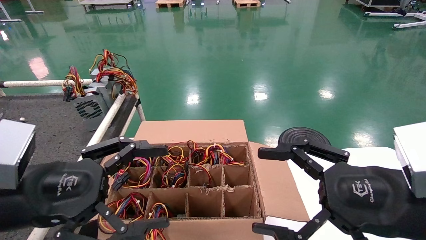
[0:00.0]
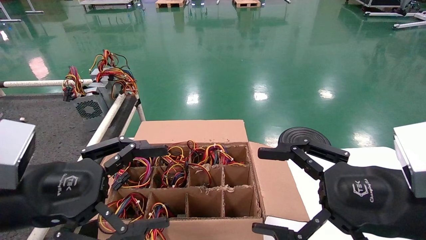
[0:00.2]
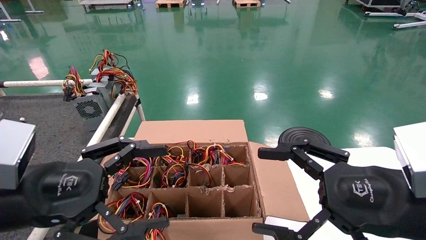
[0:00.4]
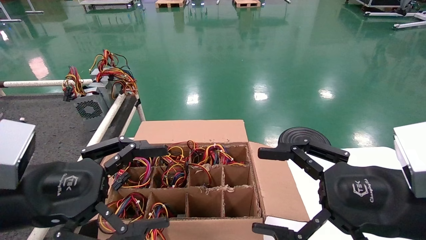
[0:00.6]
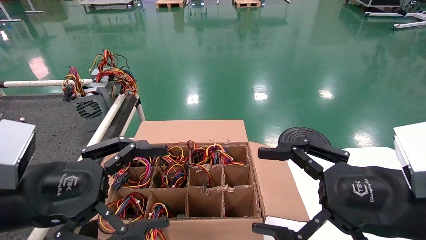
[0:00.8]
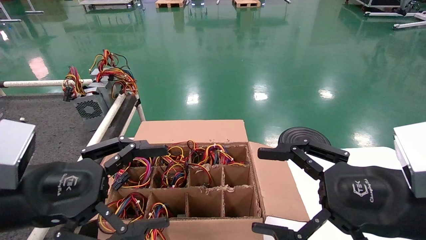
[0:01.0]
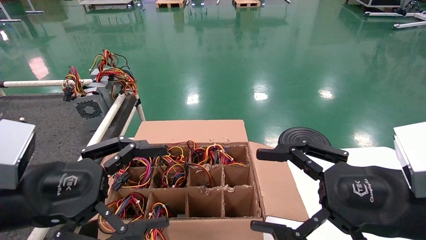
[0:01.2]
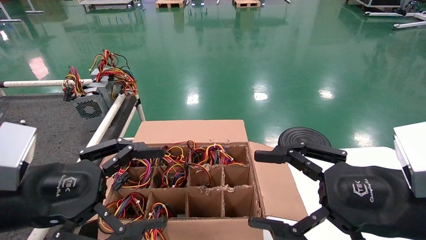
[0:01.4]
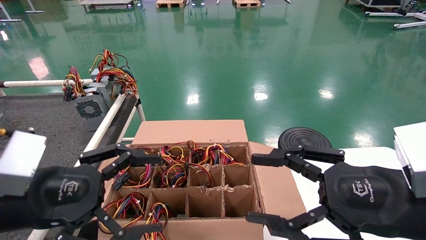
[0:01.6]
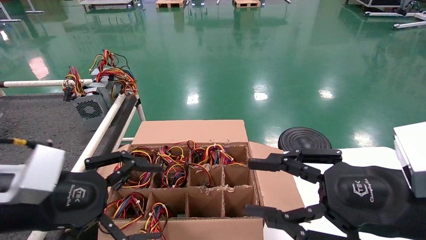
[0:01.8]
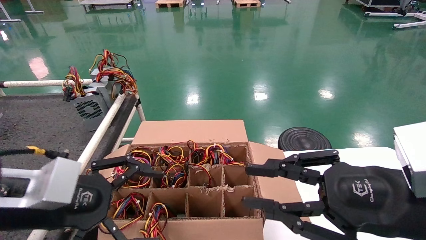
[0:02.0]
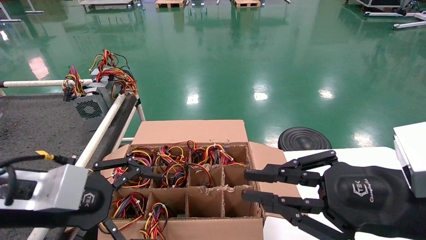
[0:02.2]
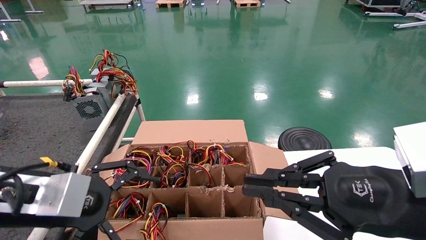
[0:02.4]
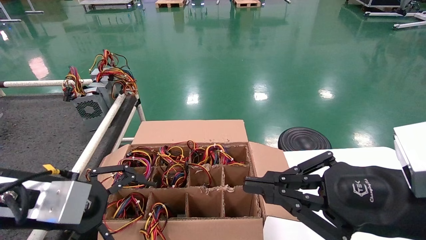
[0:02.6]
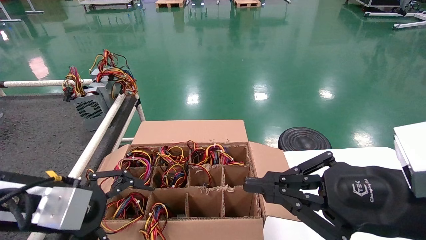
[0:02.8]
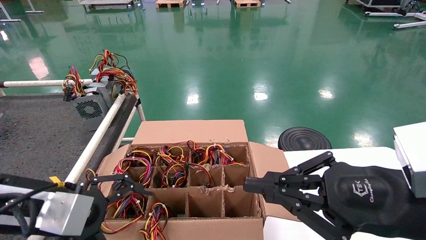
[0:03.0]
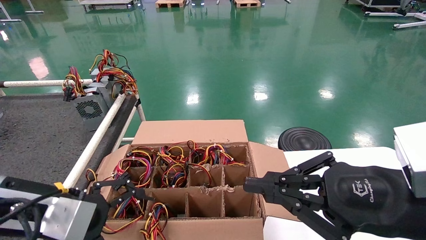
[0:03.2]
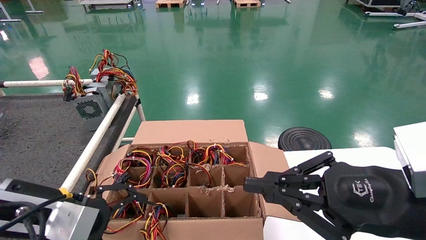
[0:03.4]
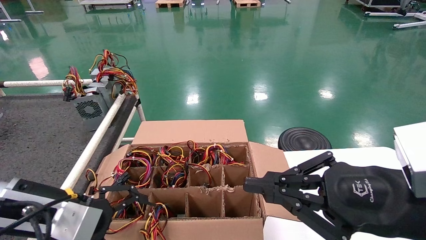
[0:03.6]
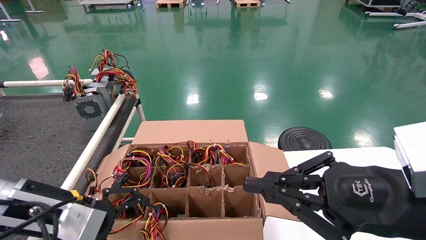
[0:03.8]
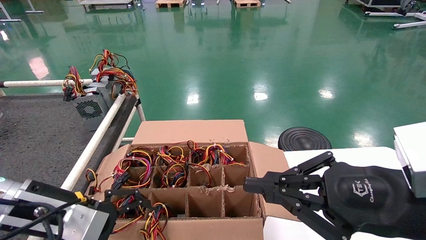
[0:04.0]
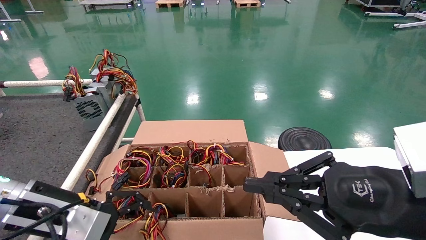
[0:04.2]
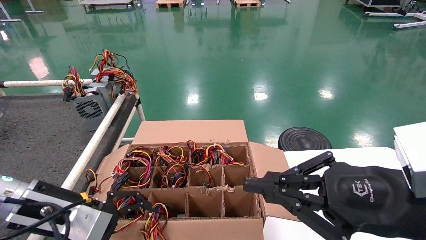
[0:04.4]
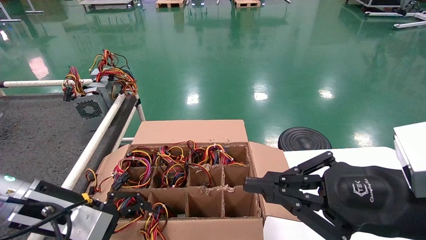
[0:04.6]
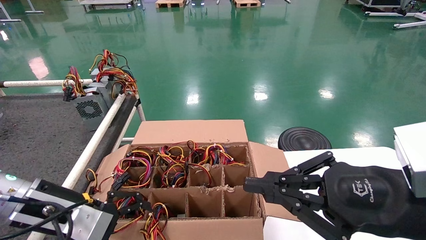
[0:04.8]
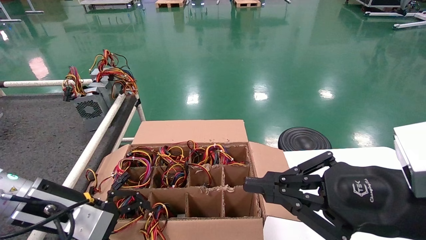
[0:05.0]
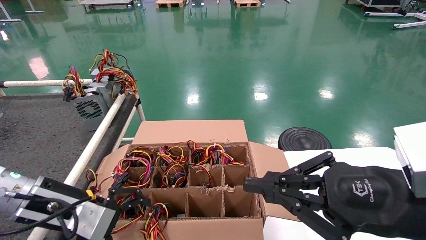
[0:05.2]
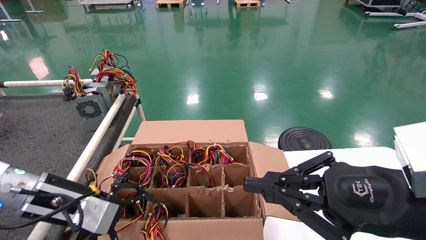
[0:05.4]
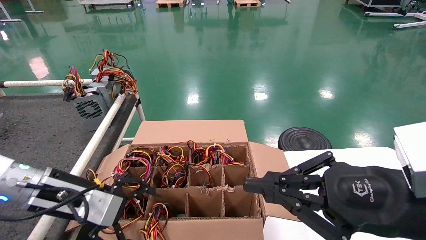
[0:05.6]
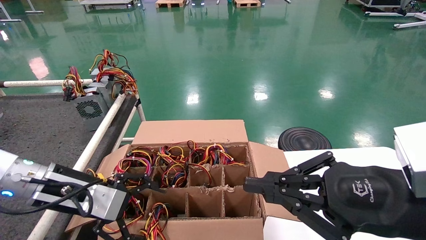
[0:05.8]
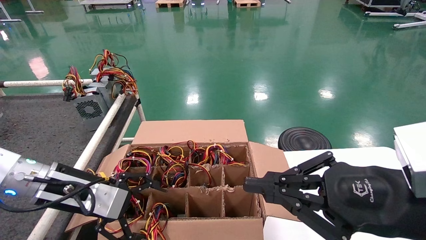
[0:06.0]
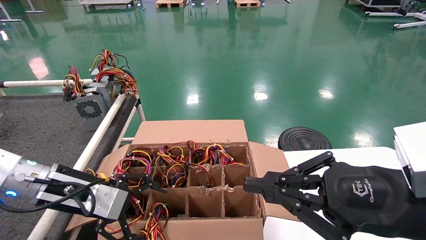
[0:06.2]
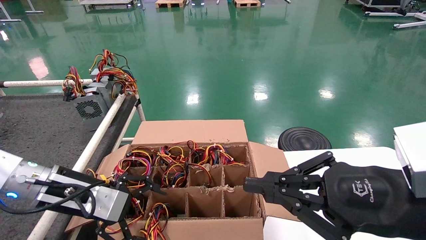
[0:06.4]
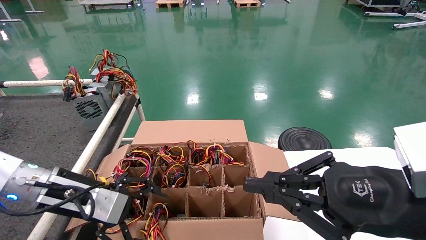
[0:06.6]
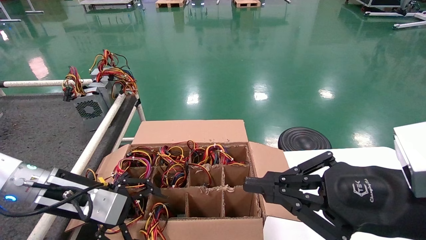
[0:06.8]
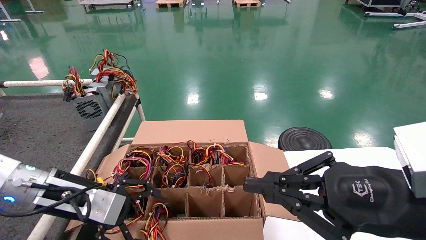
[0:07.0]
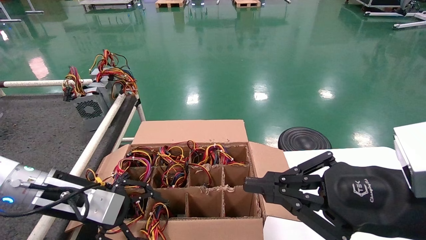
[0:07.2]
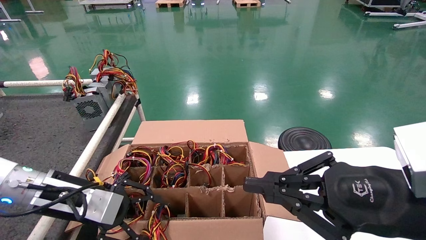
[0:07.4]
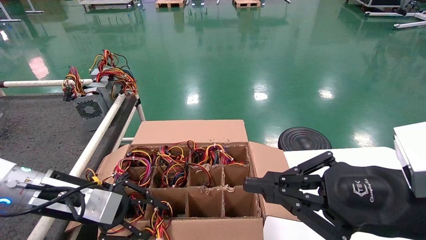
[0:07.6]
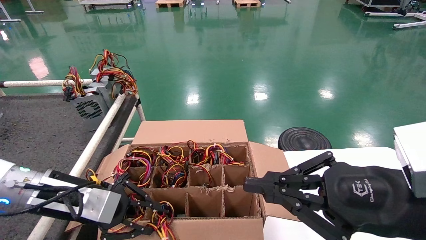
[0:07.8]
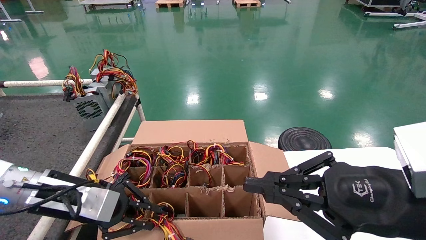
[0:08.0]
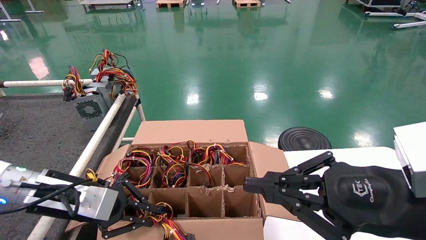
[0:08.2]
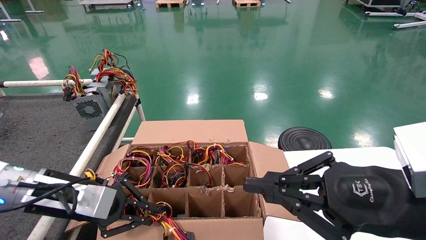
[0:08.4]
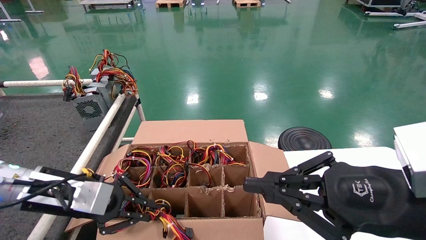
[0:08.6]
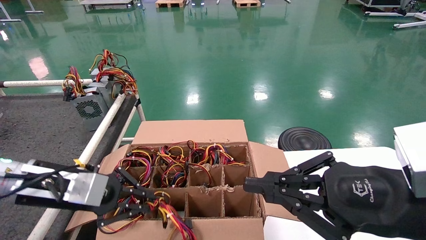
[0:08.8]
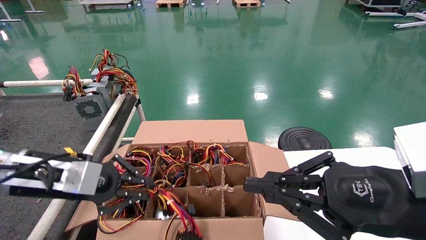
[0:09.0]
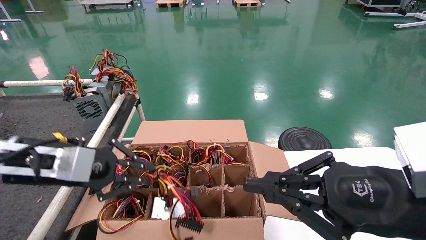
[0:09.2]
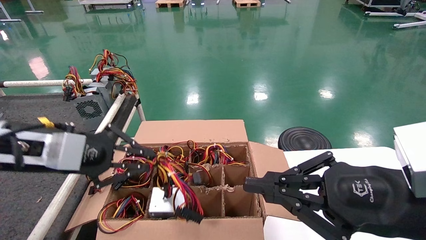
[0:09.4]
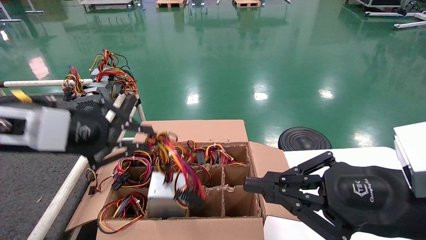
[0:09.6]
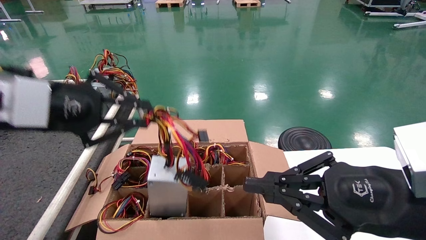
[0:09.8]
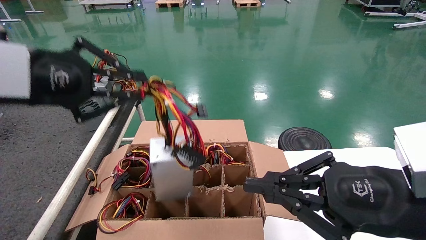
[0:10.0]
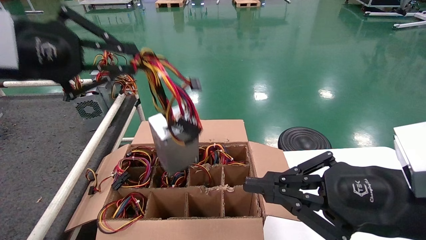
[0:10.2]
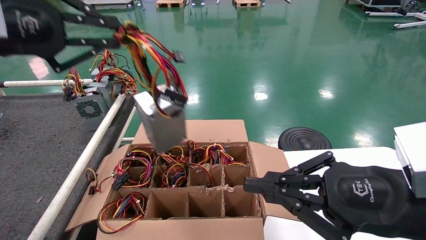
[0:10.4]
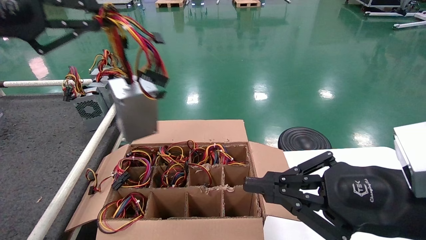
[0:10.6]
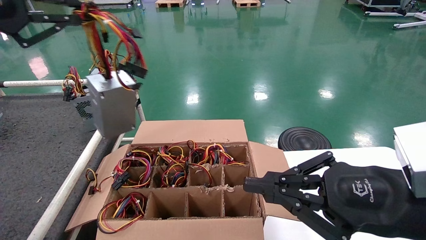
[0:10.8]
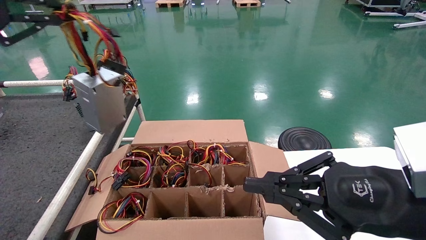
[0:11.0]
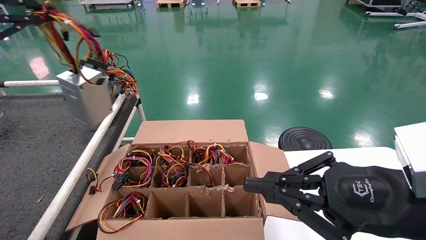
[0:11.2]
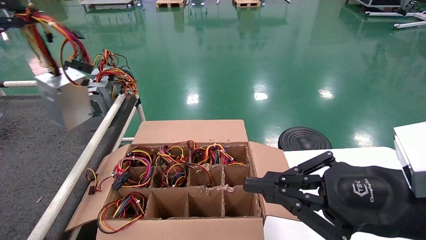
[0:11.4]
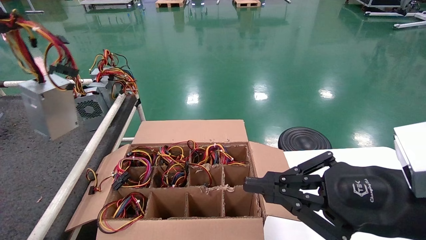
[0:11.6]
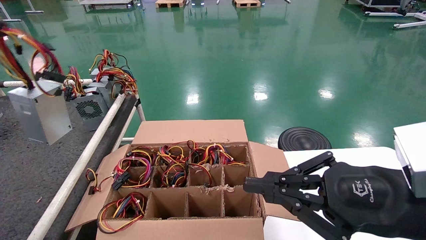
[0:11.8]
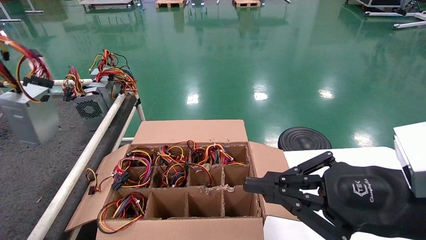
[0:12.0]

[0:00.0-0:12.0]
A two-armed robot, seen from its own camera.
Step, 0:01.8 to 0:08.6: Grab and lift the power supply from the large box.
0:00.0 to 0:01.6: The grippers stay close to where they were, moving slightly.
0:01.6 to 0:03.0: The right gripper closes up.
0:03.0 to 0:04.4: The left gripper shifts by approximately 5 cm.
0:04.4 to 0:06.0: The grippers make only small movements.
0:06.0 to 0:07.6: The left gripper closes up.
0:07.6 to 0:09.0: The left gripper travels upward by approximately 5 cm, and closes its fingers.
0:09.0 to 0:10.4: The left gripper moves upward, roughly 20 cm.
0:10.4 to 0:12.0: The left gripper shifts some 20 cm to the left.

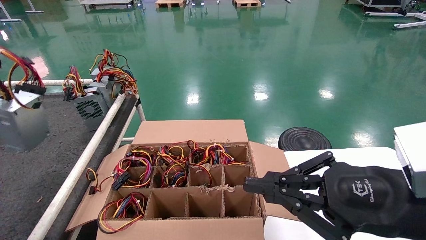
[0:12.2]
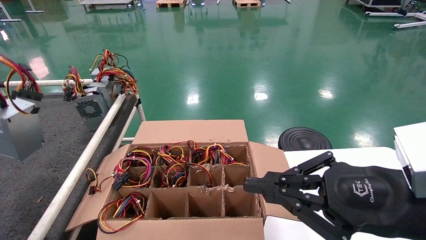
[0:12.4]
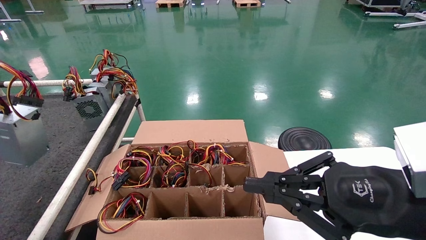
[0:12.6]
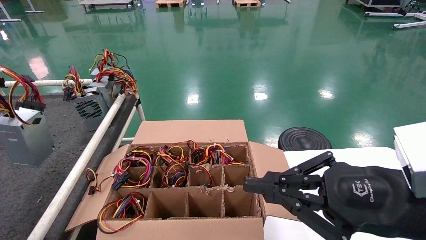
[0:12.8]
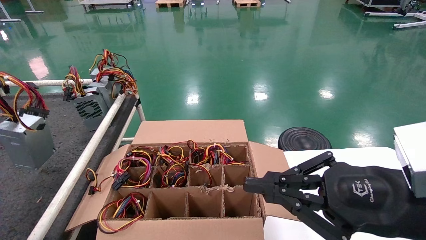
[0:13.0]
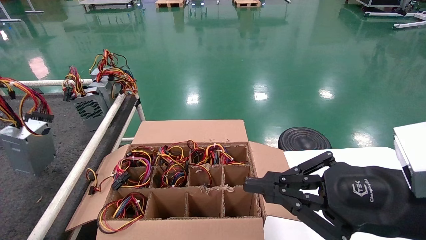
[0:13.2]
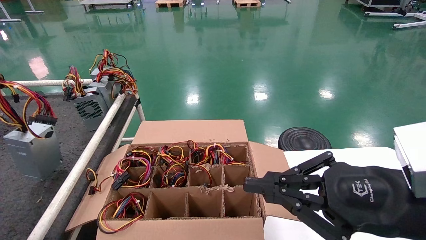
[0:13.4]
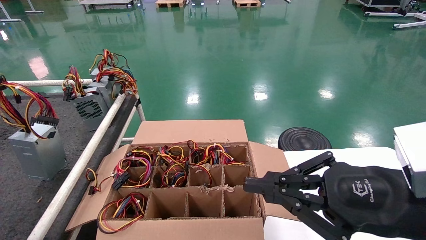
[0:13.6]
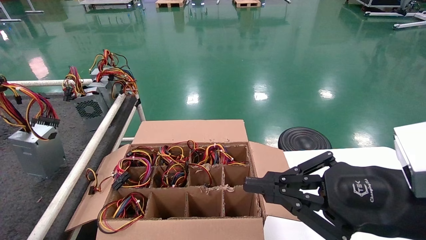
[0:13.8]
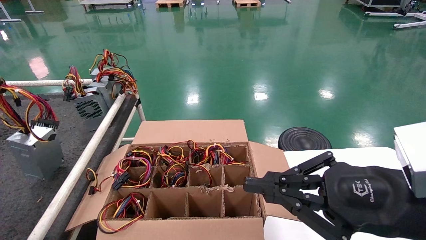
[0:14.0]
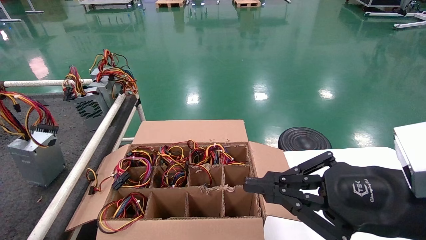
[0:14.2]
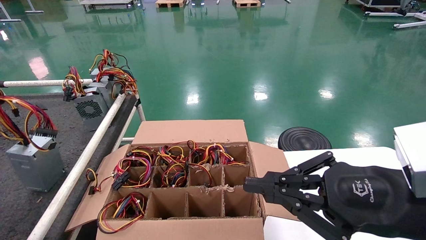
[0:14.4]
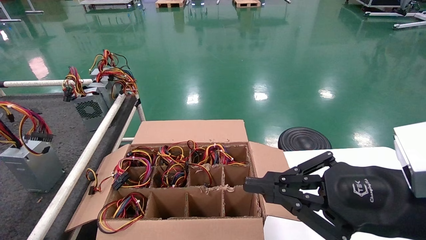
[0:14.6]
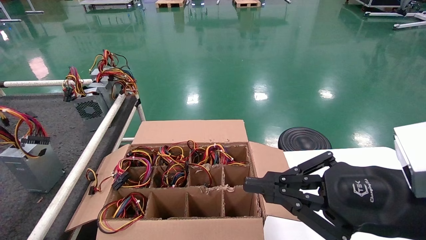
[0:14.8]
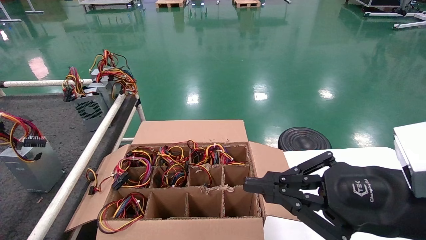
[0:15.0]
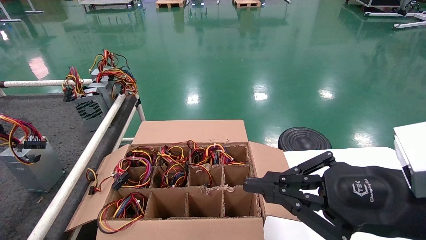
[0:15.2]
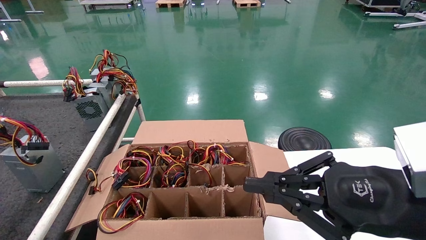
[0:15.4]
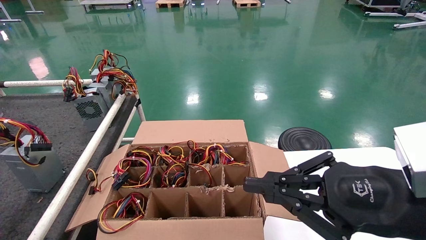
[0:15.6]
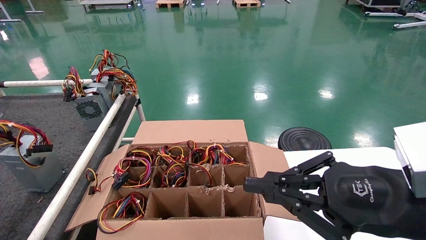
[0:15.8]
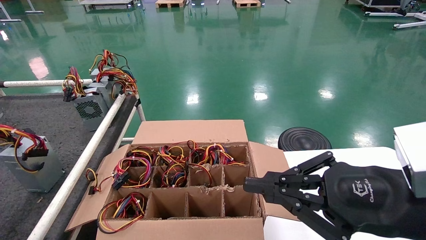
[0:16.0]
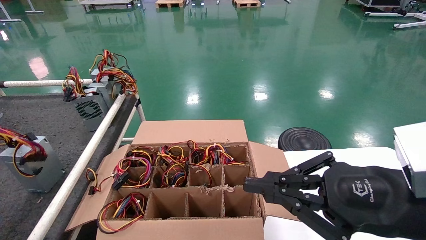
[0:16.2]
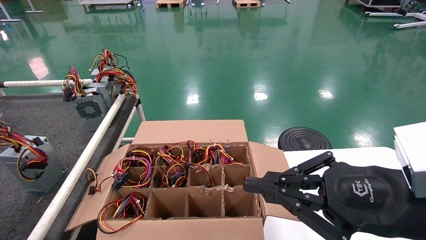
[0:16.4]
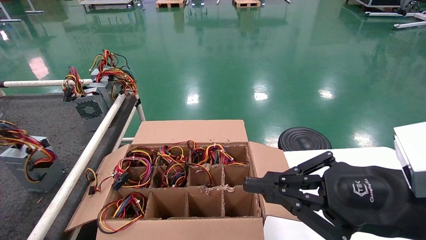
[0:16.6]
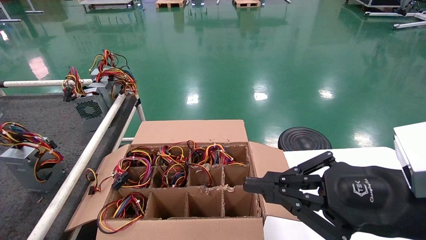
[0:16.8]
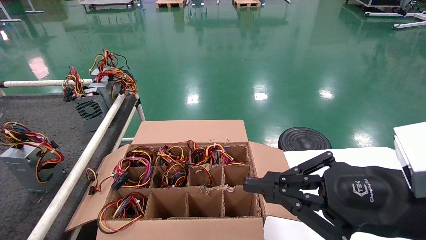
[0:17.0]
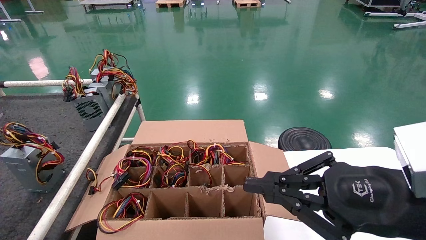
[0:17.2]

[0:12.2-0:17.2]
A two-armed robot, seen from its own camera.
Step, 0:12.2 to 0:16.0: Place the power supply on the operating table.
0:12.2 to 0:13.8: The left gripper goes some 5 cm downward.
0:13.8 to 0:15.6: The left gripper travels downward by roughly 5 cm.
0:15.6 to 0:17.2: The left gripper opens its fingers.
